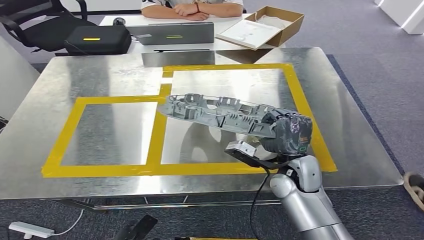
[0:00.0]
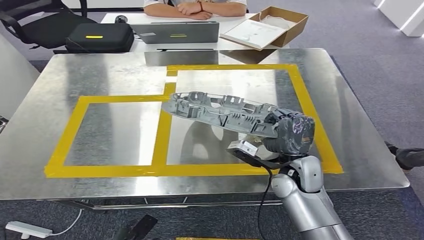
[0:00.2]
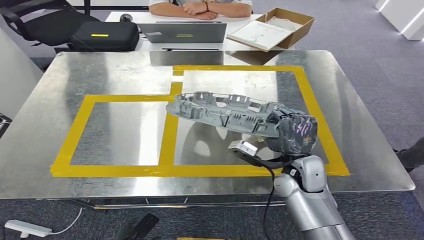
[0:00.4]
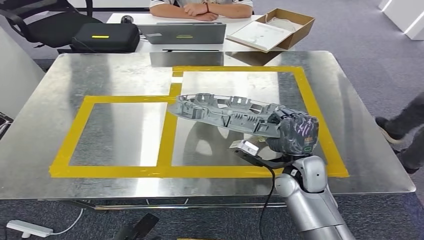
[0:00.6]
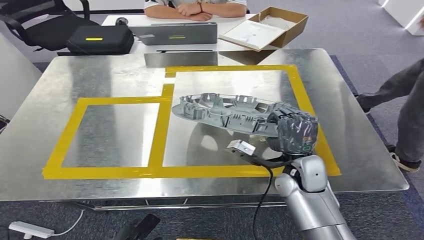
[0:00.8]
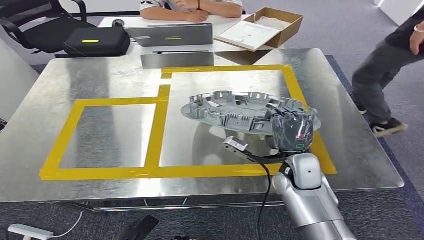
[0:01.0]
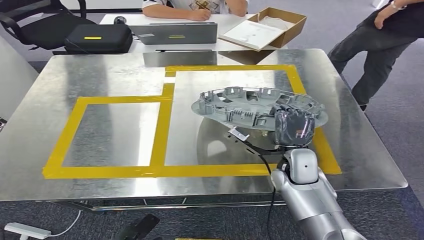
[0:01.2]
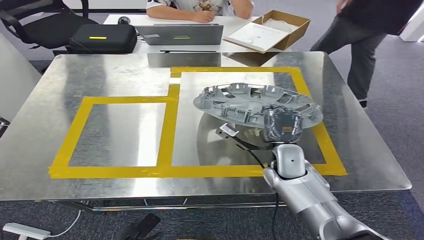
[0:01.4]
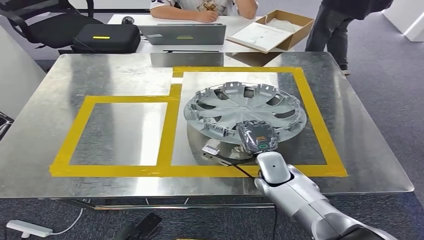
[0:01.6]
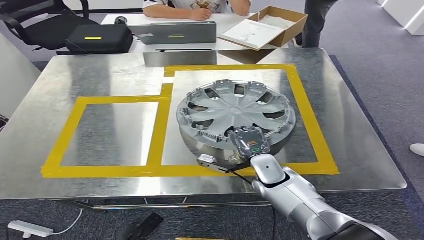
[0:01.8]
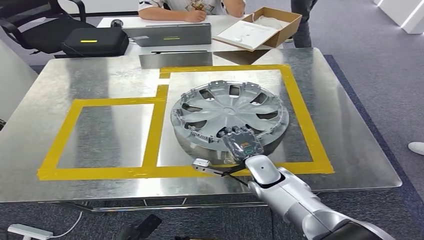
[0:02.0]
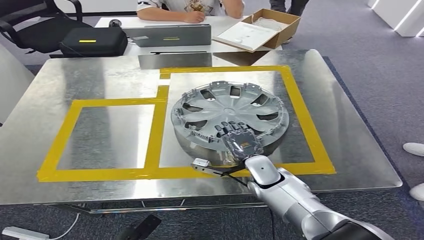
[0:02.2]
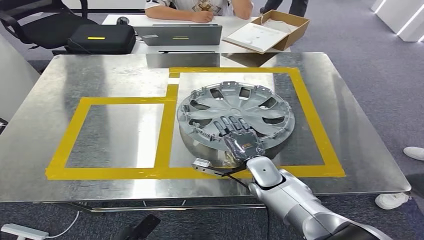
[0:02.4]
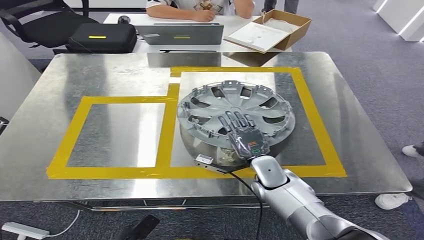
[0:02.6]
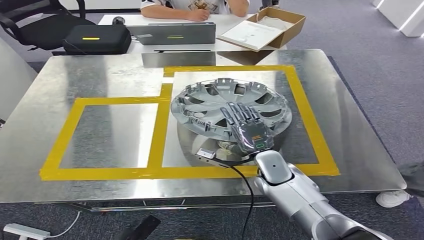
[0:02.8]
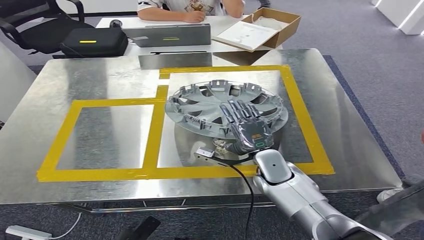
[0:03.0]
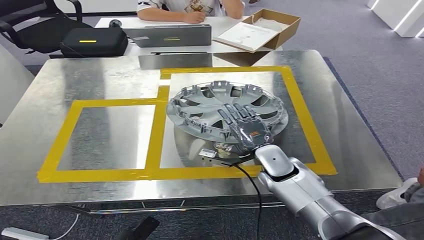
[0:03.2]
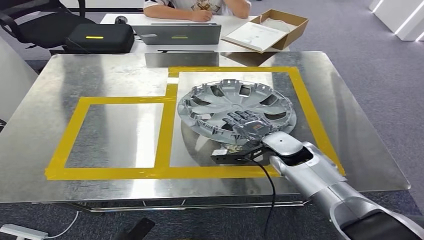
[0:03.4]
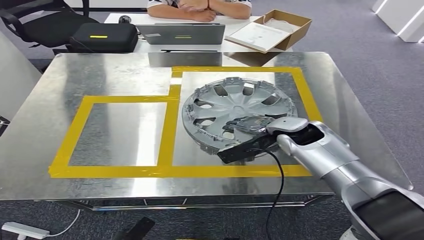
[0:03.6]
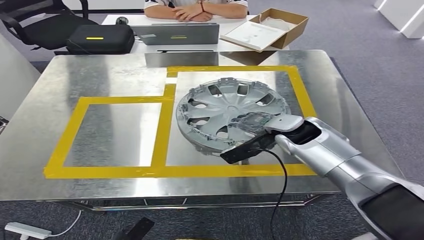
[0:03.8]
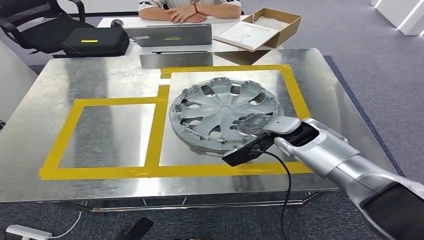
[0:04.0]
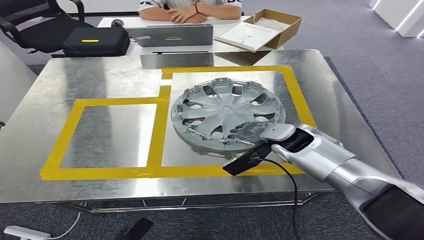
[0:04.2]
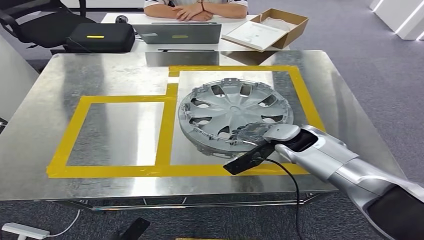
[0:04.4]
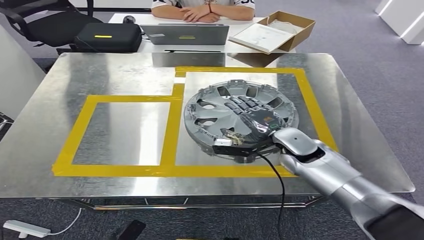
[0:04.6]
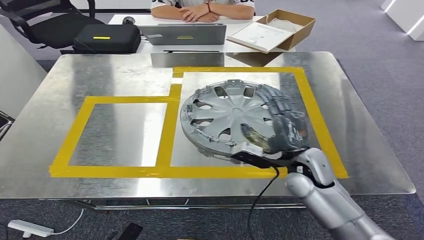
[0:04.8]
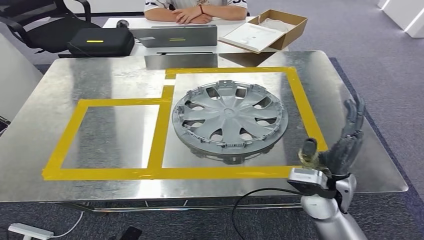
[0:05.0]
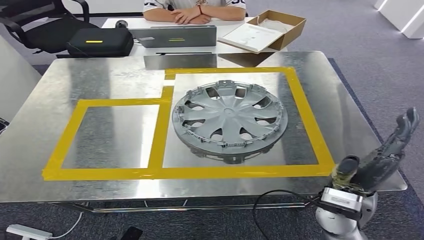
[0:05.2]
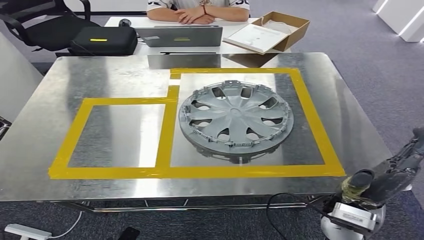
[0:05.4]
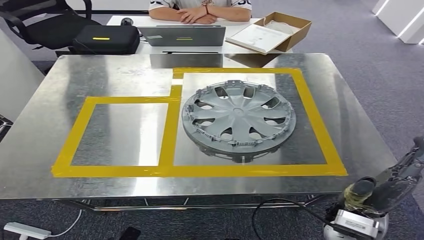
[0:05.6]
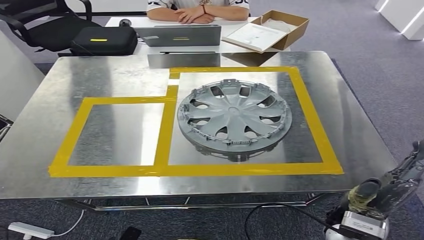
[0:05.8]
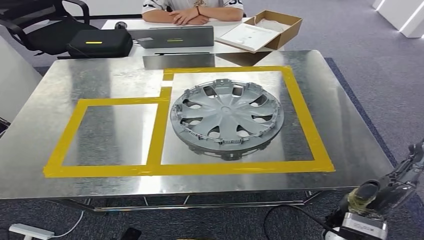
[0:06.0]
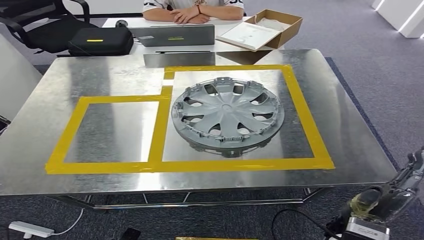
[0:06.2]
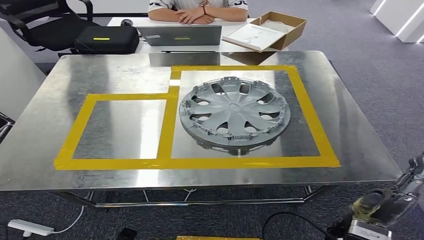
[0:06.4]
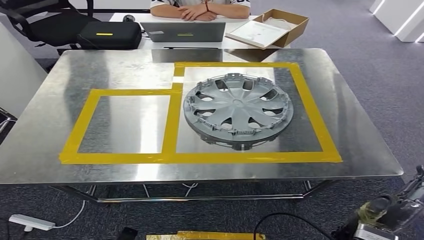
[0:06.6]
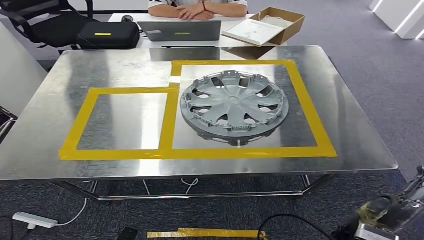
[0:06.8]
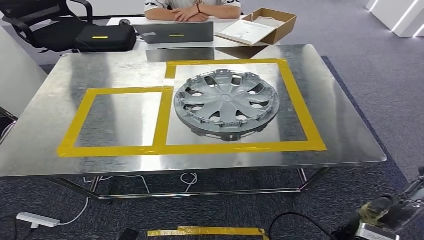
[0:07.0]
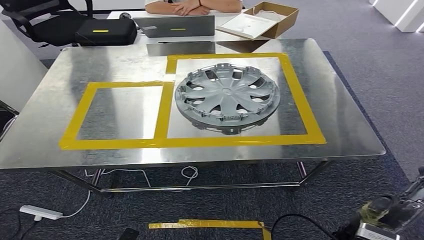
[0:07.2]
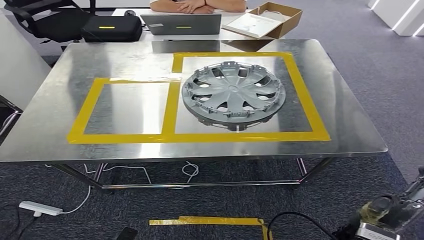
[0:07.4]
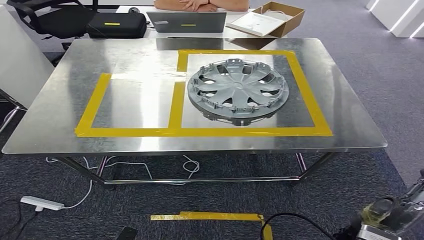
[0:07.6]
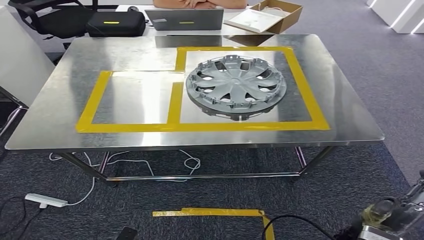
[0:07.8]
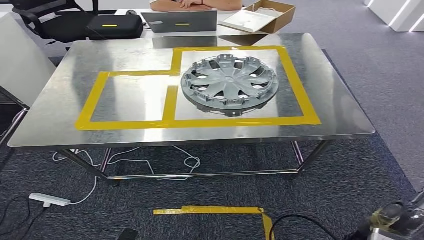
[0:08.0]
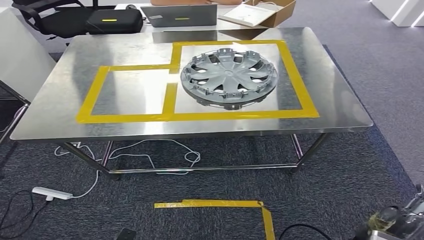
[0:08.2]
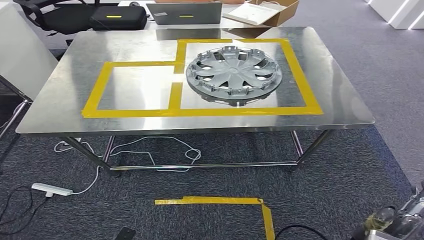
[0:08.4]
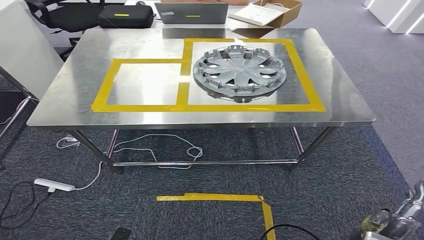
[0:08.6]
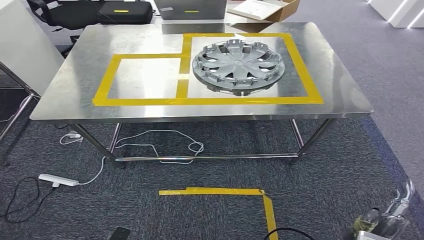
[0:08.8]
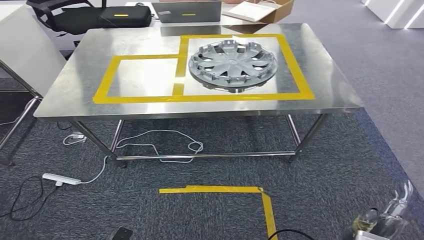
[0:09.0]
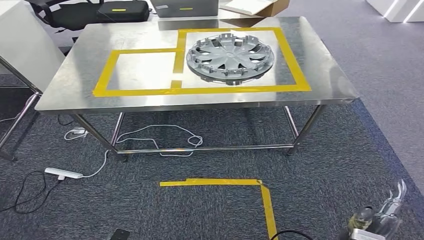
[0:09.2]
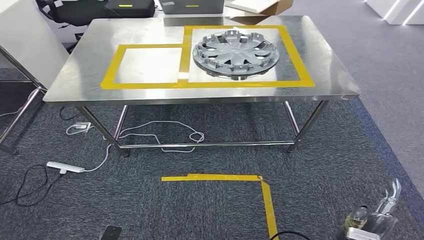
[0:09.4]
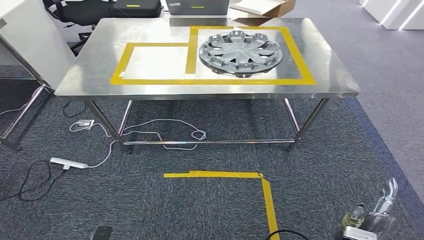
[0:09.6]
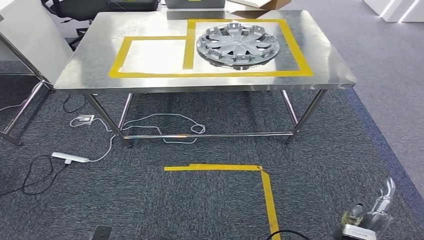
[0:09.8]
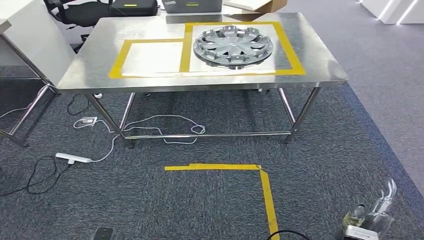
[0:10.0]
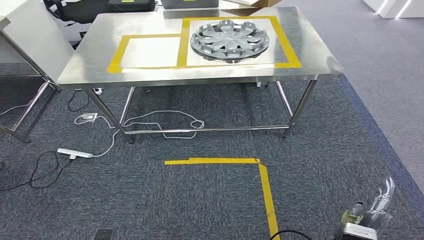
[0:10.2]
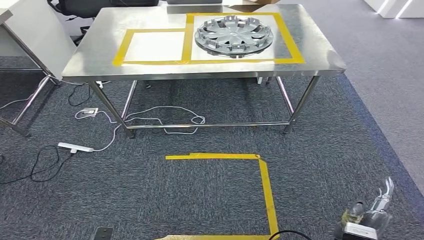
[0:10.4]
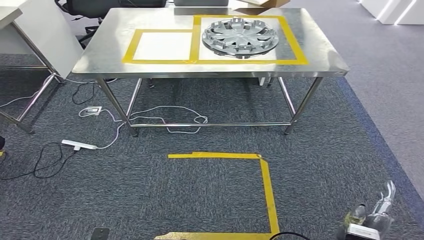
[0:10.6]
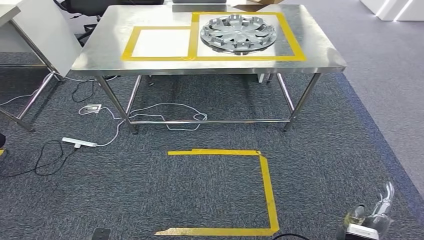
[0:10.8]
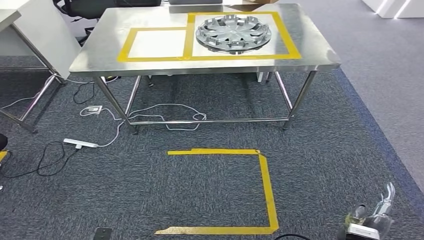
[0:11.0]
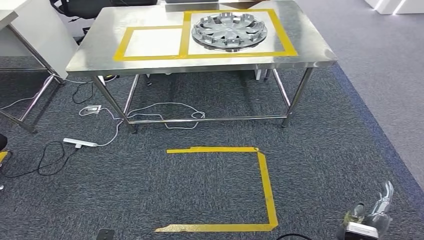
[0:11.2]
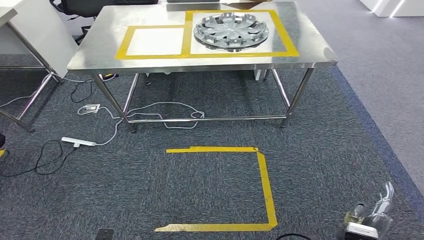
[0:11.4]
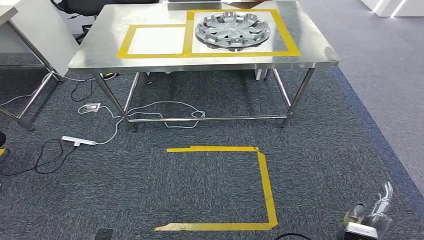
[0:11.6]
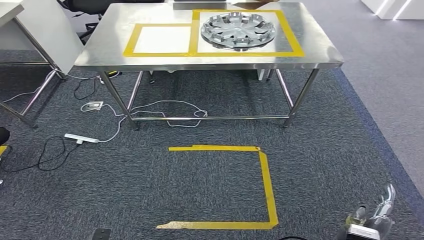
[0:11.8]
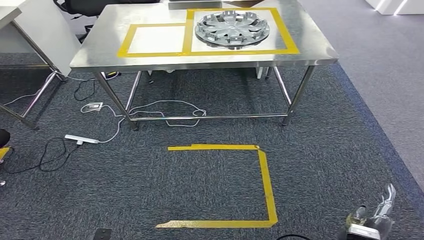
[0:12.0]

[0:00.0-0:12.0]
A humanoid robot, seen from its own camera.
Step, 0:00.0 to 0:05.8: Insert the small component into the corresponding slot on the workbench.

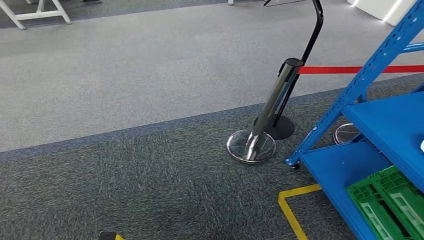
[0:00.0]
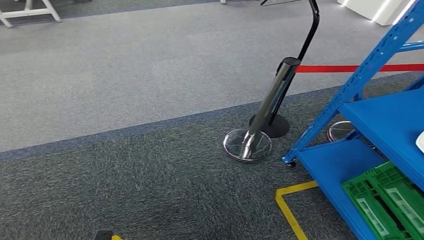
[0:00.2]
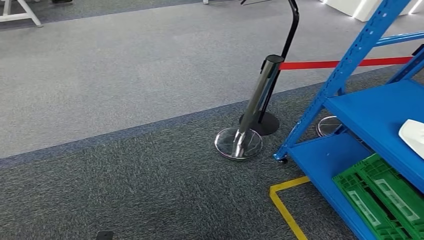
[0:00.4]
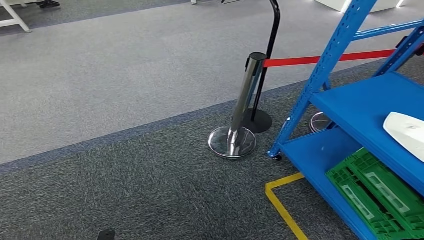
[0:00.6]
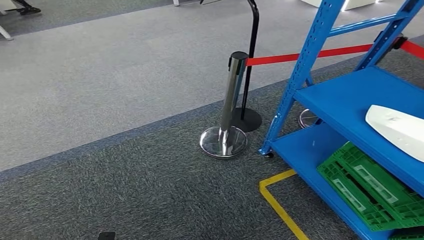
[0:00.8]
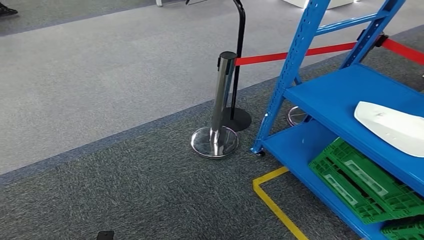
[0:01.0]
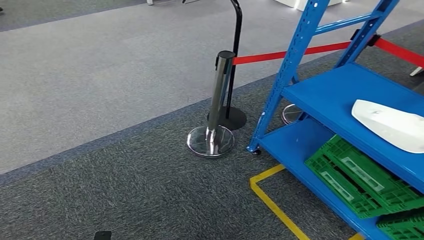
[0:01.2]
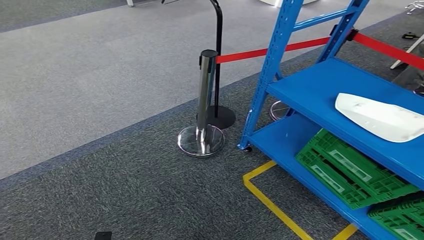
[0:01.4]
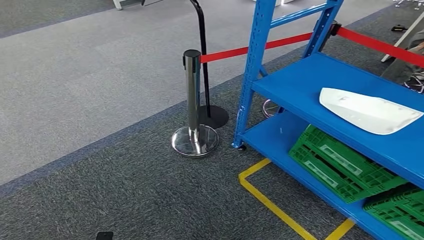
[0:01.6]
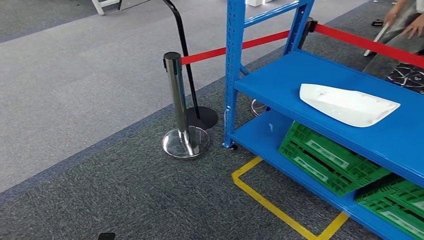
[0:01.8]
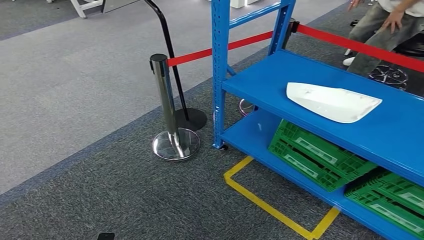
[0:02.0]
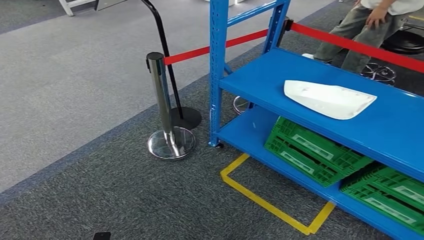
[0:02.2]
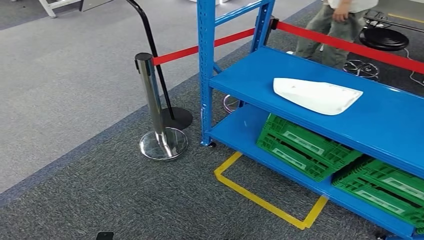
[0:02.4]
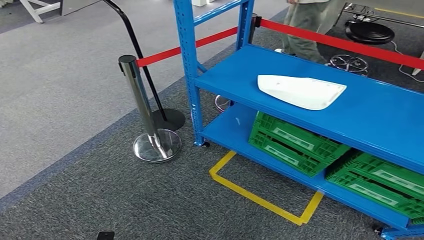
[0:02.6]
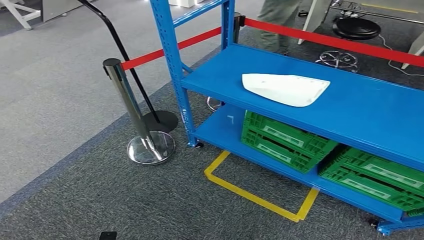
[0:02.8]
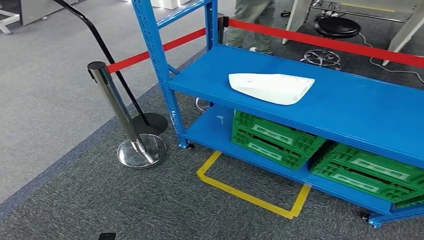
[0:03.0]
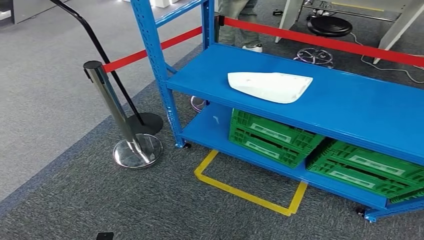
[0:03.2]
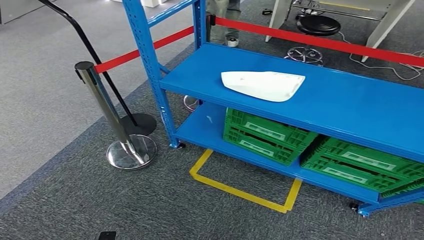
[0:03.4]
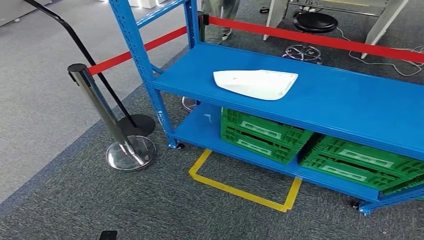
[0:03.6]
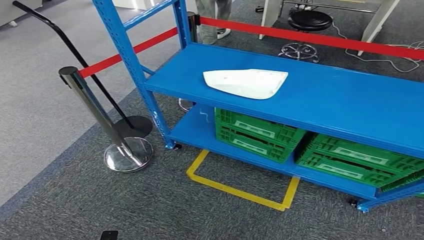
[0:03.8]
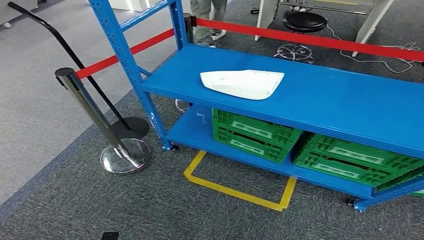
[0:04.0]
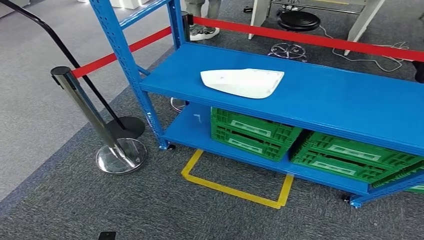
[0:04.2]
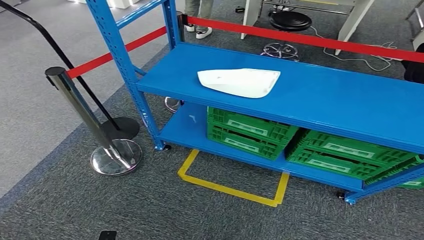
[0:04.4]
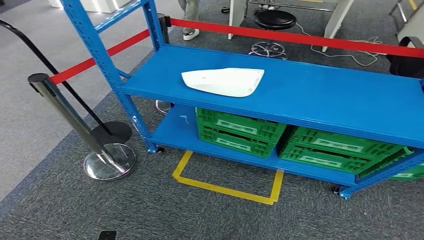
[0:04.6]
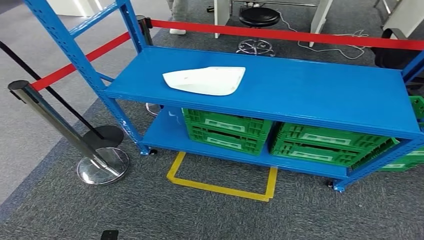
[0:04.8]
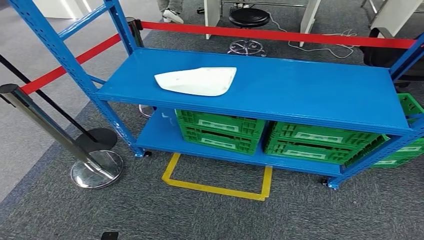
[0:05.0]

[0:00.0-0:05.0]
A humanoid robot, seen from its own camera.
Step, 0:00.0 to 0:05.0: Return to the initial position at the workbench.
